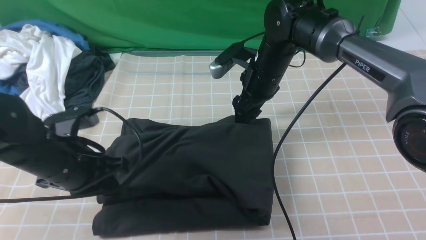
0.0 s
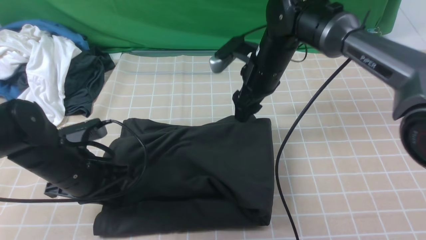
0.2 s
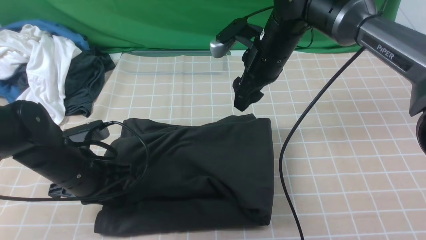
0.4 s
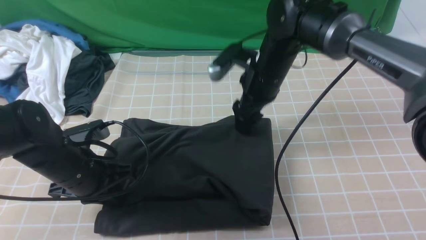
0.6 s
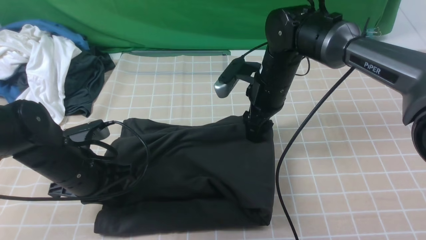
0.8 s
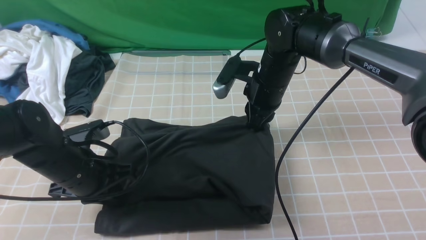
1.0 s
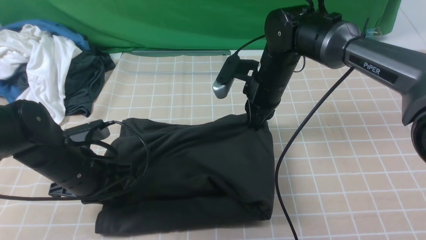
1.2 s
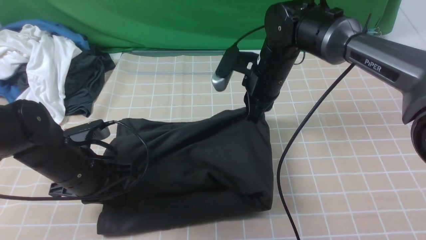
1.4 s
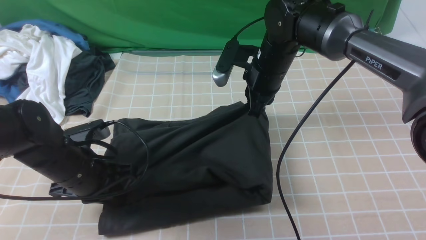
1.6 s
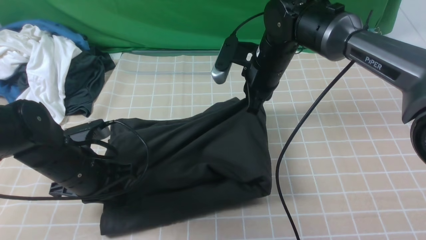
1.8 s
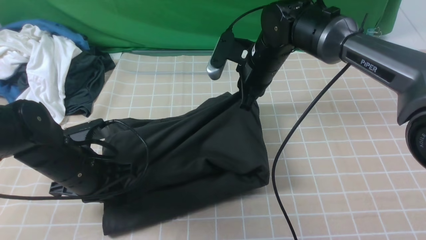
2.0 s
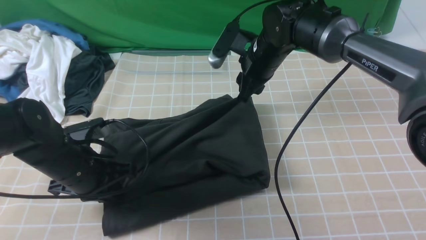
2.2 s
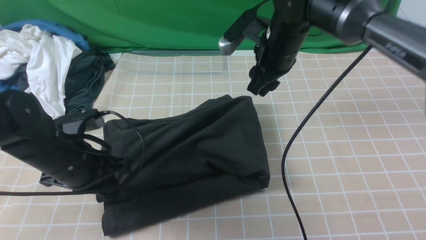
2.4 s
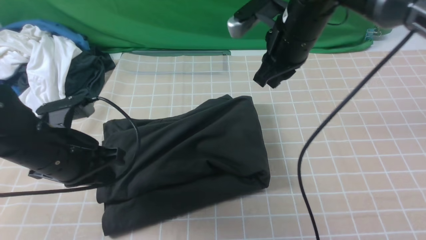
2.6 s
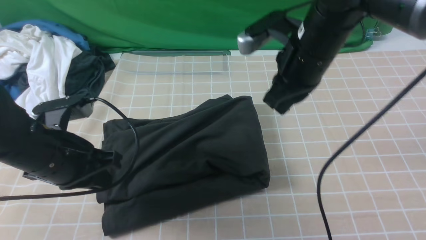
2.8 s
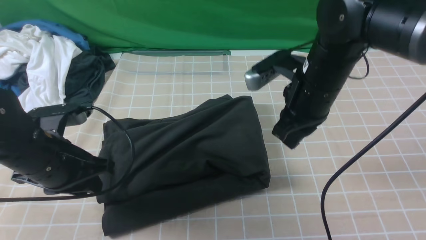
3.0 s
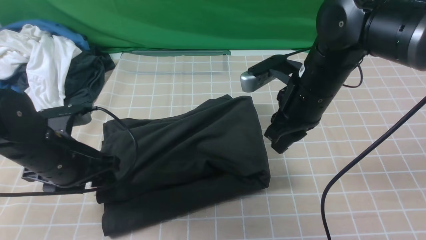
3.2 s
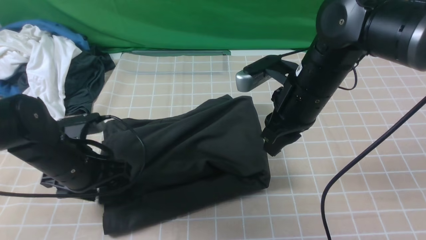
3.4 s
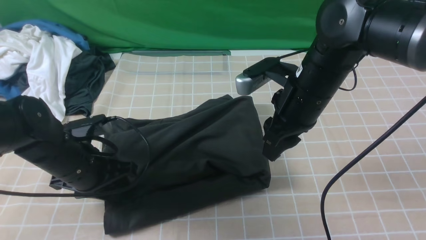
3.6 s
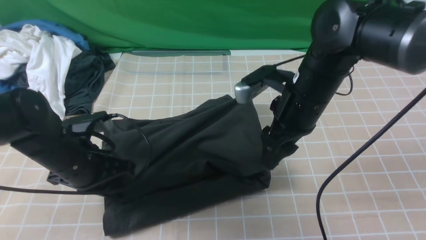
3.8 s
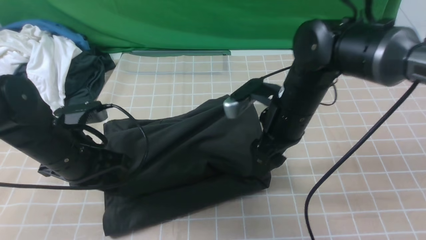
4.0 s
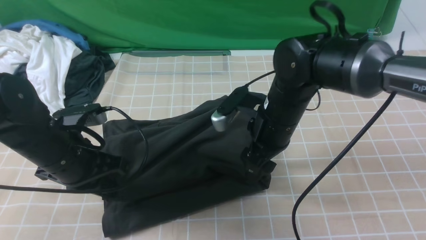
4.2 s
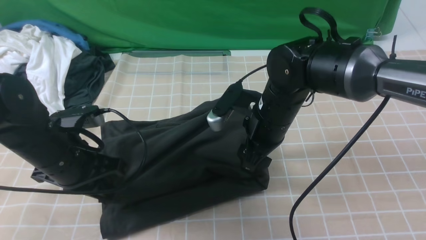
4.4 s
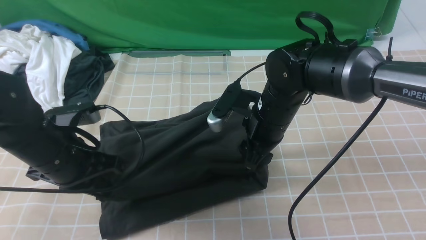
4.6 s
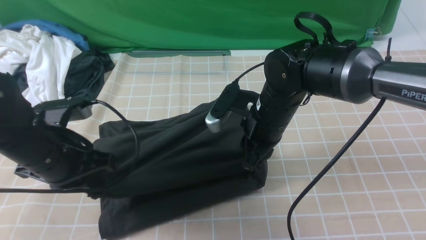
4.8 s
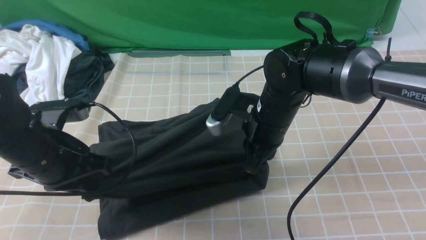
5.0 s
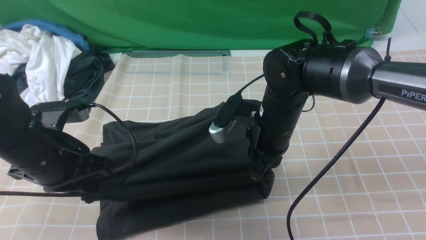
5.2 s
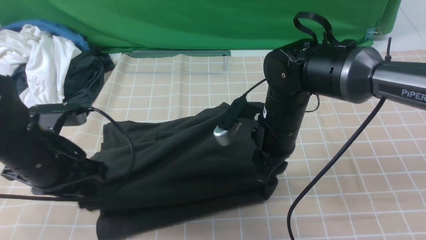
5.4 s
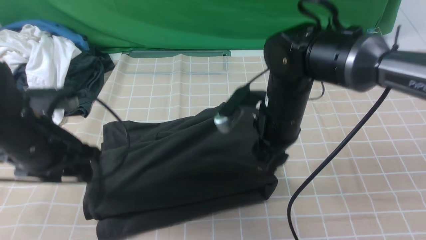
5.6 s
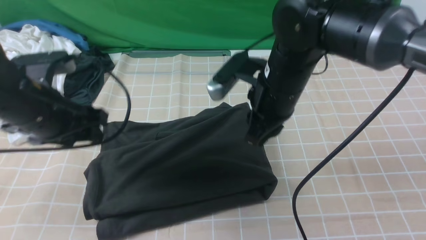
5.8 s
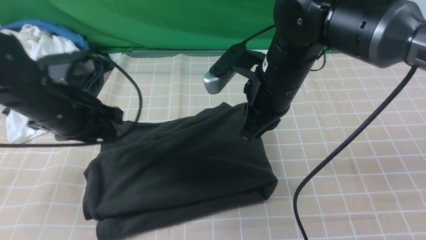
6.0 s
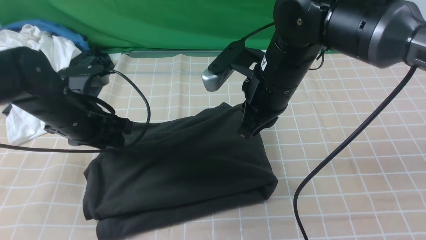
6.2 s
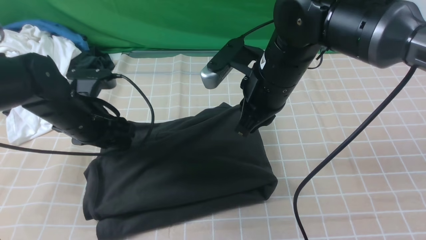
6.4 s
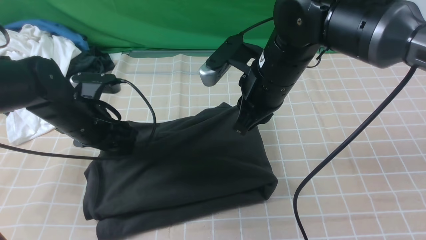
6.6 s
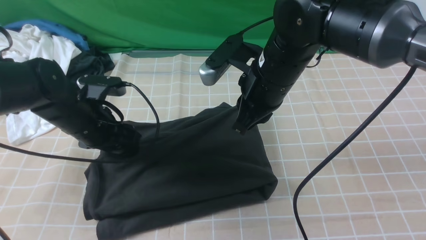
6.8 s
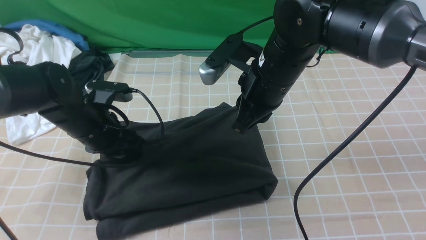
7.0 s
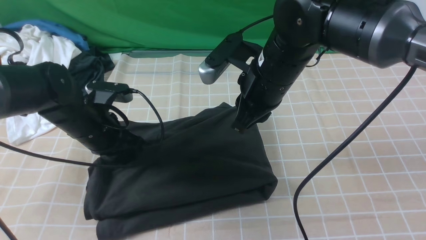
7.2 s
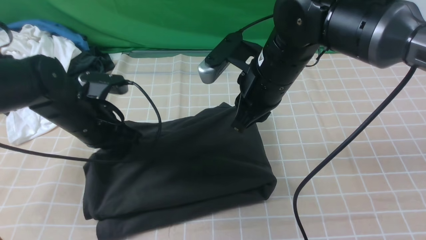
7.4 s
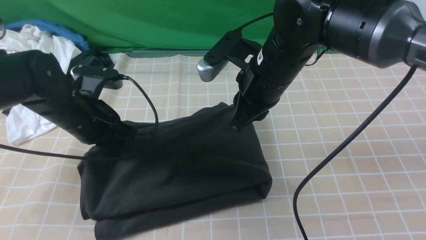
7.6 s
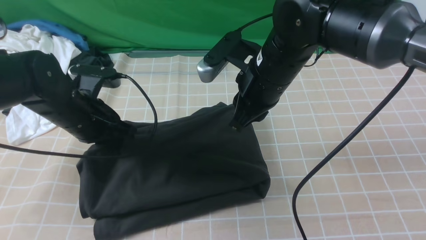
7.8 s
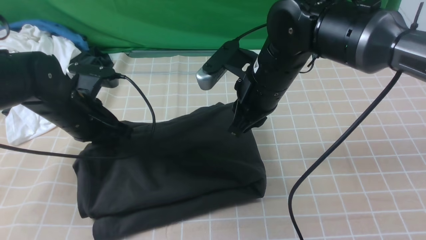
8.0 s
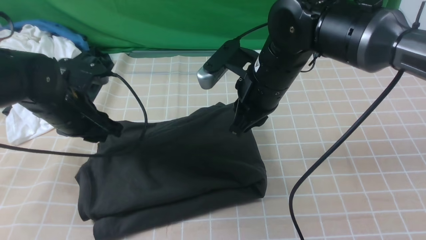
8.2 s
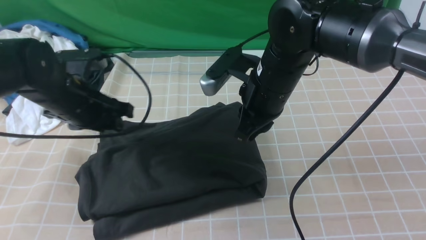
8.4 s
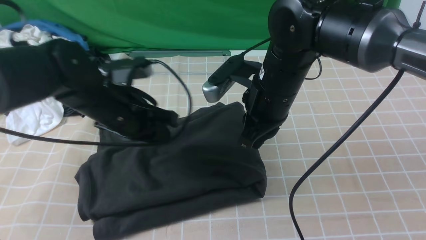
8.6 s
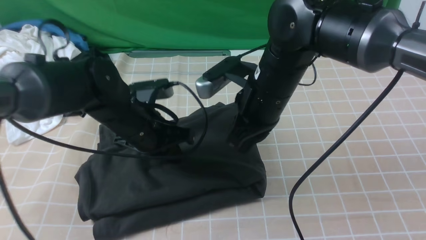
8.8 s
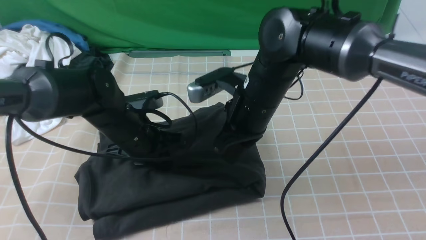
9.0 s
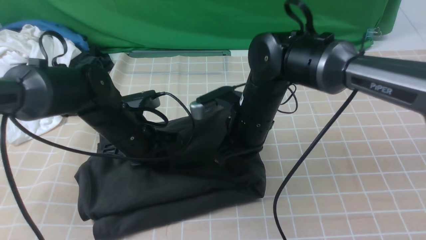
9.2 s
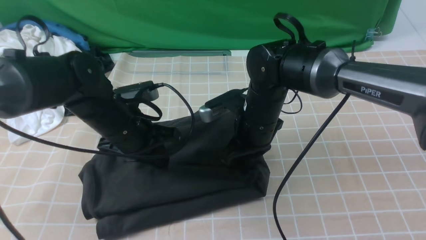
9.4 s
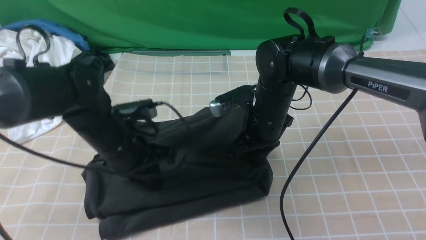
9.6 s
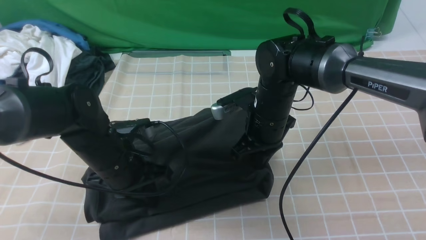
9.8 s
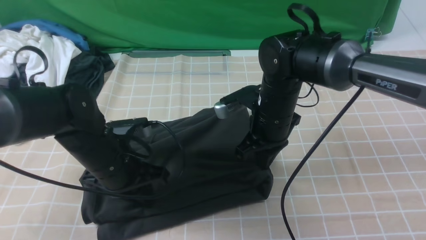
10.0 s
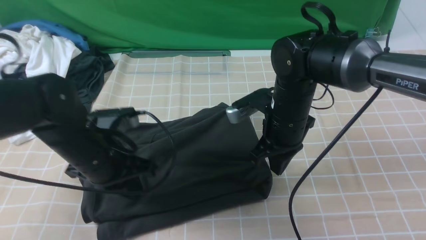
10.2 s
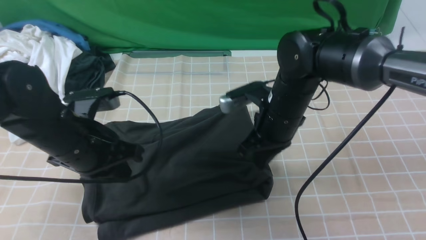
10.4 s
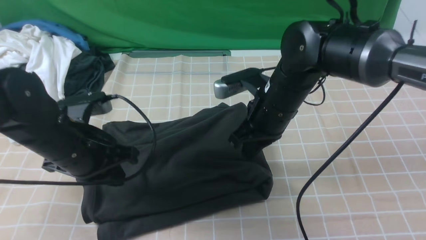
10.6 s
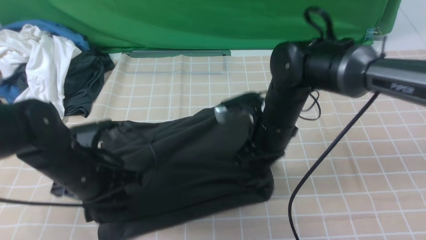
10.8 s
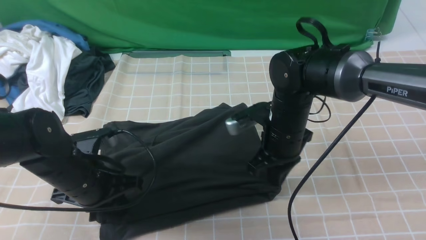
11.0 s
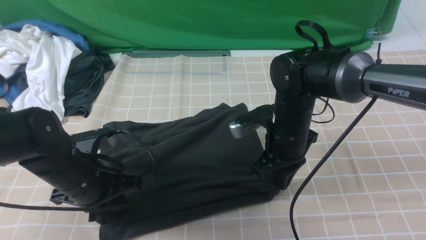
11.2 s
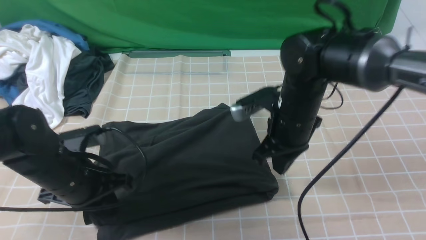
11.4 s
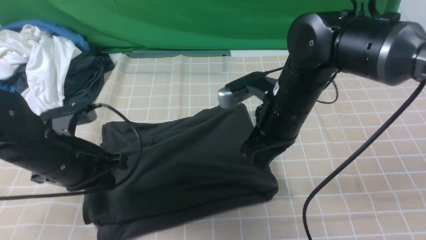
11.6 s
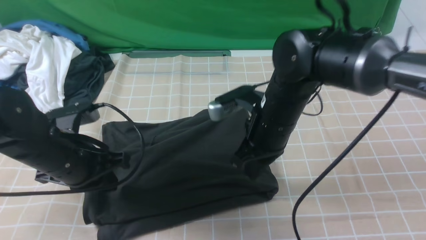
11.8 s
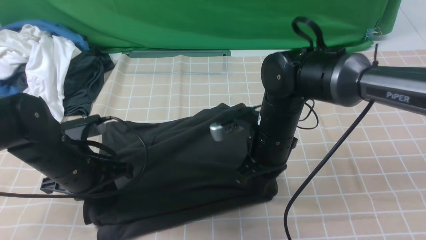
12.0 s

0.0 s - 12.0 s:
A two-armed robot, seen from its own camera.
0.0 s - 1.6 s: The right gripper closes.
1.6 s - 3.0 s: The right gripper travels backward by roughly 10 cm; the left gripper shifts by approximately 5 cm, and opens.
3.0 s - 4.4 s: The left gripper closes. Meanwhile the right gripper goes approximately 5 cm downward, and opens.
4.4 s - 6.0 s: The left gripper ends up approximately 5 cm from where it was, and opens its fingers, while the right gripper travels upward by roughly 5 cm, and closes.
6.0 s - 7.6 s: The left gripper closes up.
7.6 s - 9.0 s: The left gripper heads to the right, covering approximately 5 cm, and opens, then closes again. Meanwhile the right gripper shifts by roughly 5 cm.
9.0 s - 10.4 s: The left gripper is displaced backward by about 5 cm.

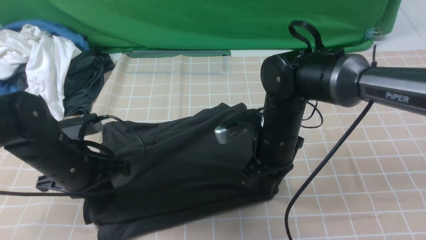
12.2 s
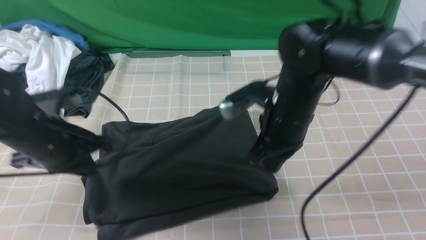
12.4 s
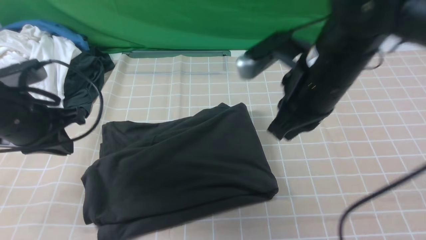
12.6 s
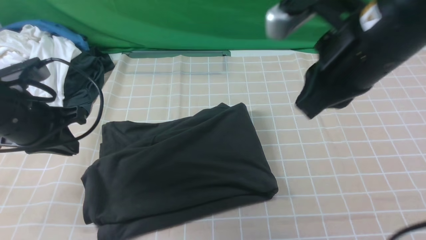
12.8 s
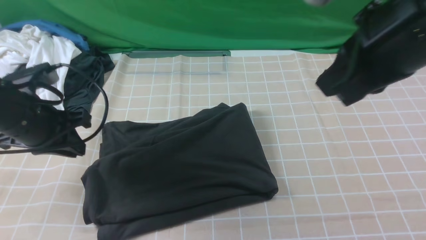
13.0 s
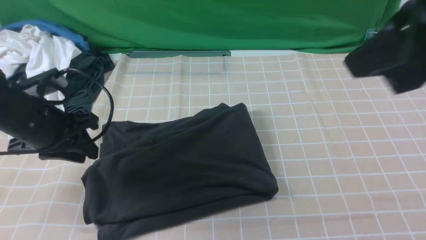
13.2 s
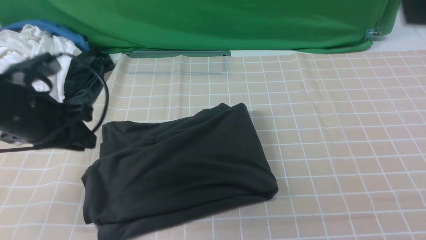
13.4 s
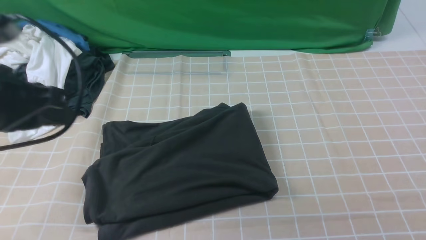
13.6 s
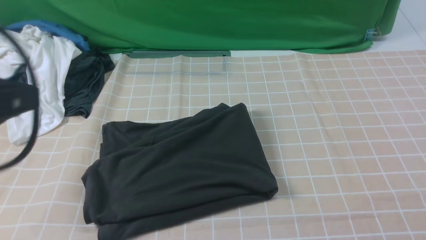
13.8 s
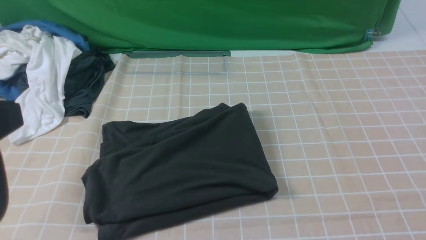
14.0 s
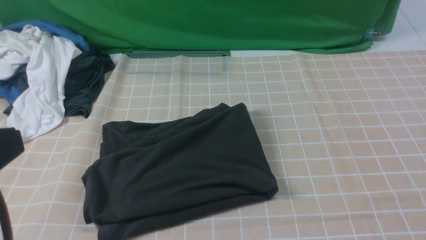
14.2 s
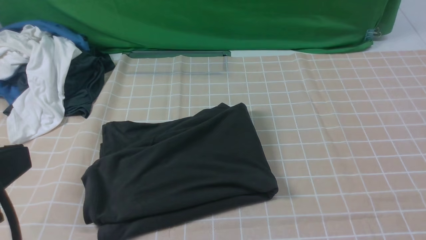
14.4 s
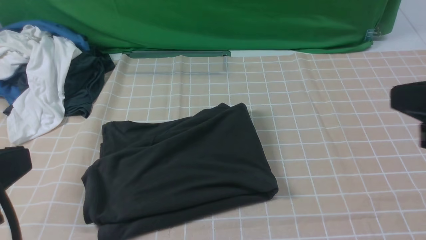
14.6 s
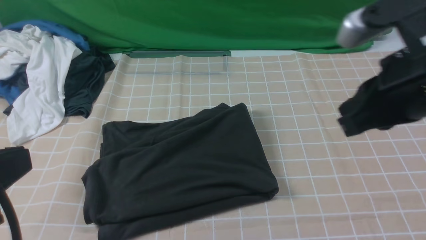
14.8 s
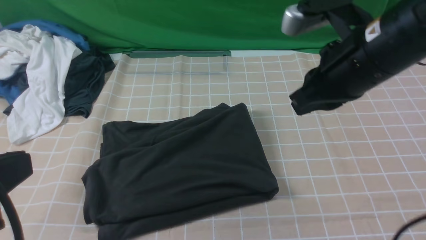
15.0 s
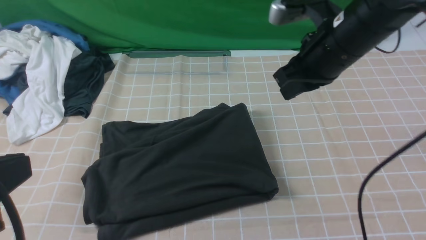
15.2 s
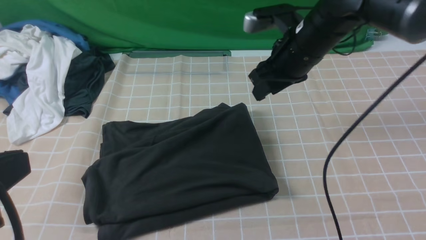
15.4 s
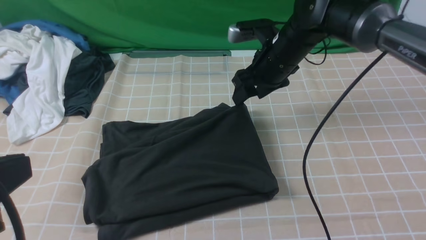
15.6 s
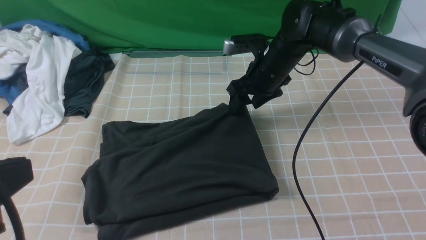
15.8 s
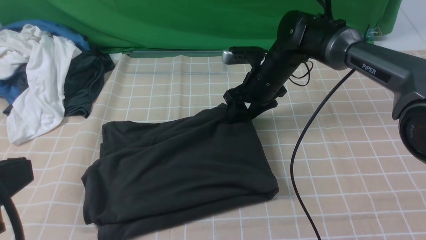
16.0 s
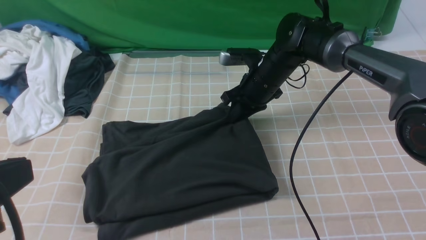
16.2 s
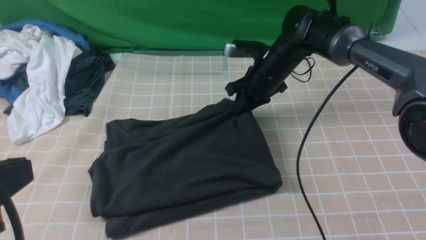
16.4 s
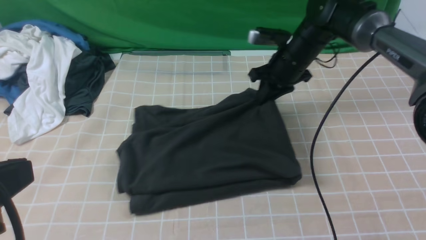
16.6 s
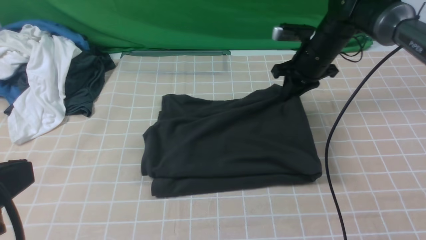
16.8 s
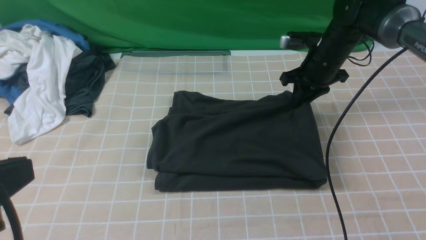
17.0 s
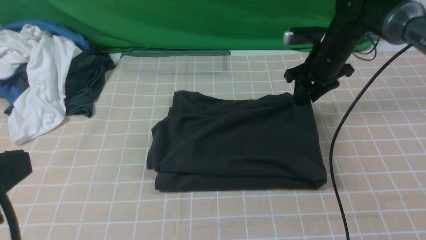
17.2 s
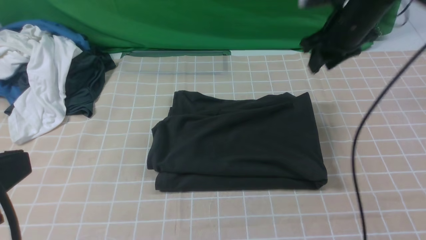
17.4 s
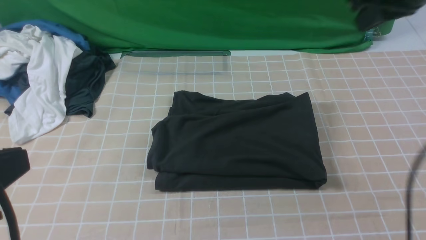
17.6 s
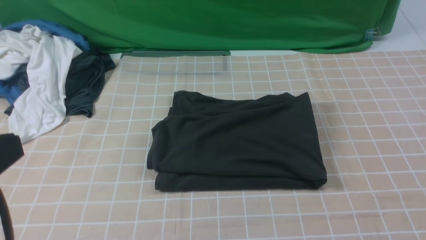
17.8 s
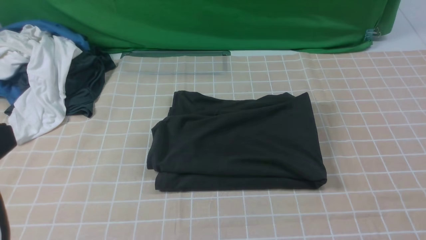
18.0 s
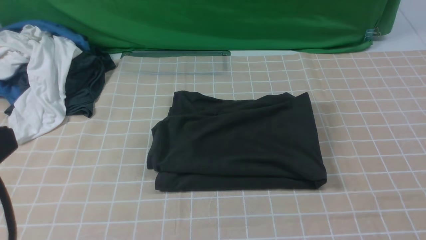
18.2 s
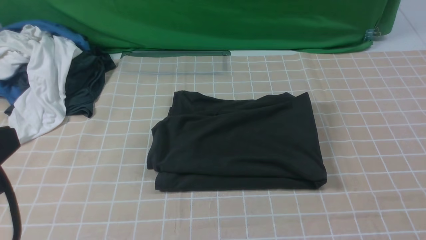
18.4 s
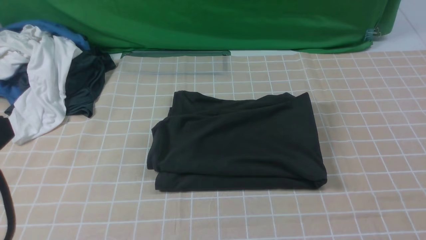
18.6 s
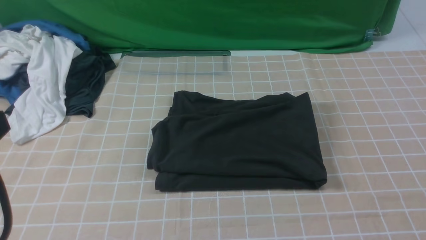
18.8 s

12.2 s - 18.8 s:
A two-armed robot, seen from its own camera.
12.2 s - 13.8 s: The right gripper goes approximately 40 cm backward, upward and to the right, while the left gripper moves upward and backward, some 25 cm.
13.8 s - 15.4 s: The left gripper shifts approximately 10 cm backward, while the right gripper travels forward, downward and to the left by some 40 cm, and opens its fingers.
15.4 s - 17.2 s: The right gripper goes approximately 10 cm to the right and forward.
17.2 s - 18.8 s: The right gripper is displaced backward by approximately 40 cm.
